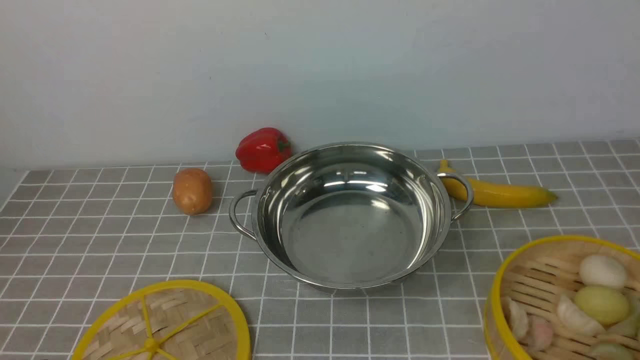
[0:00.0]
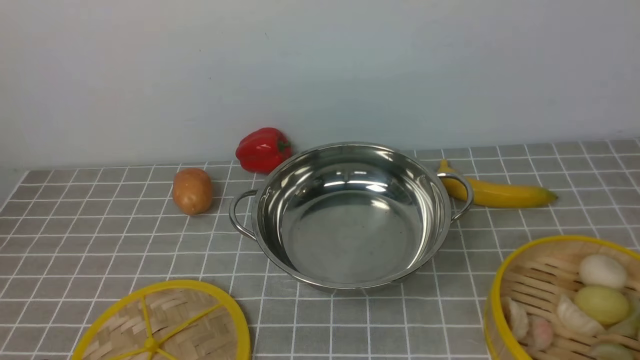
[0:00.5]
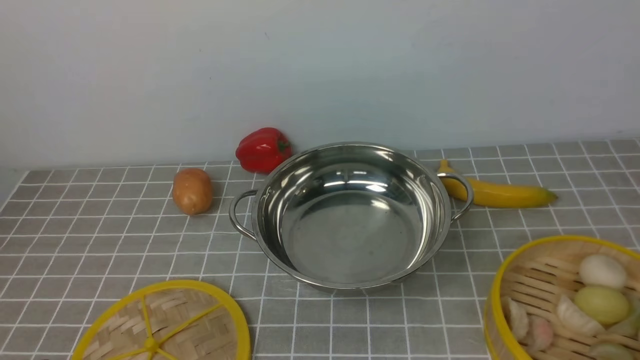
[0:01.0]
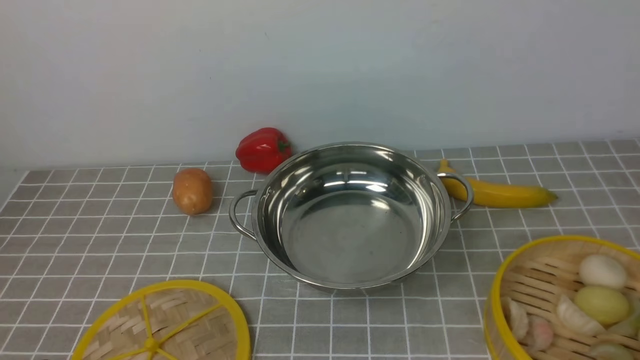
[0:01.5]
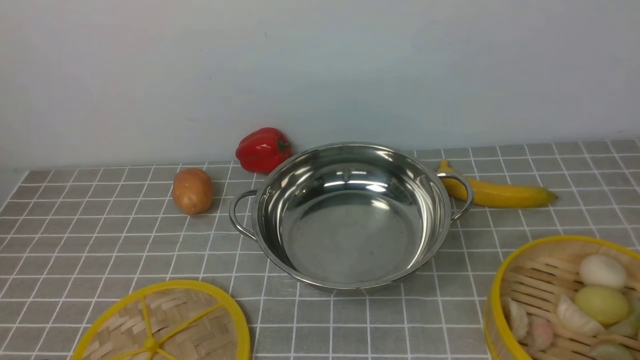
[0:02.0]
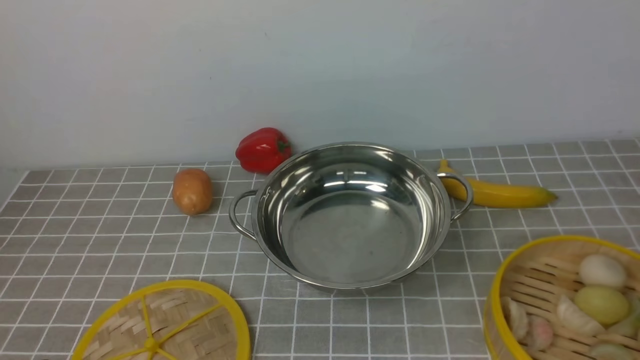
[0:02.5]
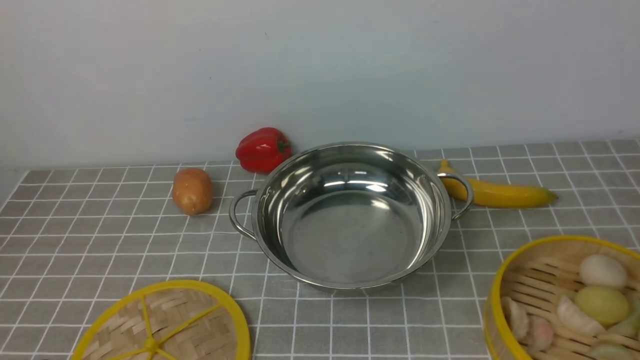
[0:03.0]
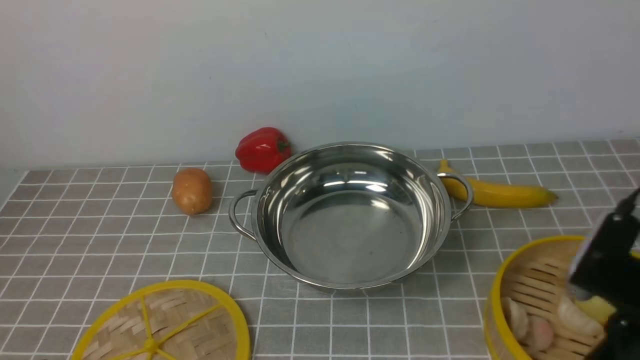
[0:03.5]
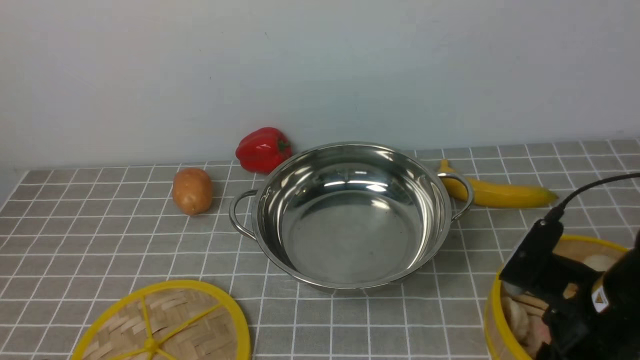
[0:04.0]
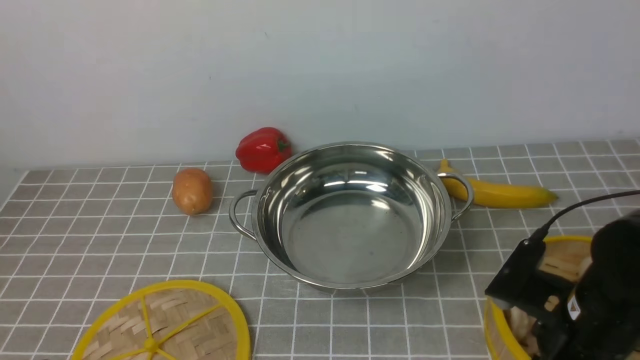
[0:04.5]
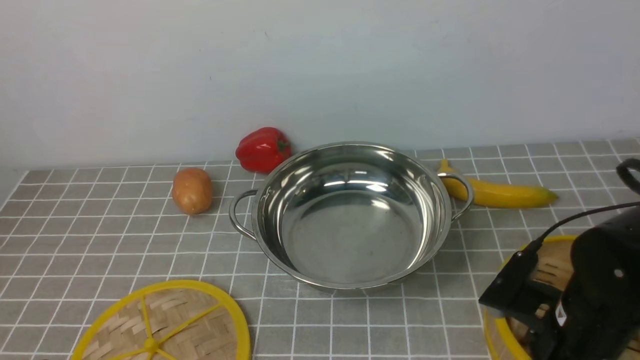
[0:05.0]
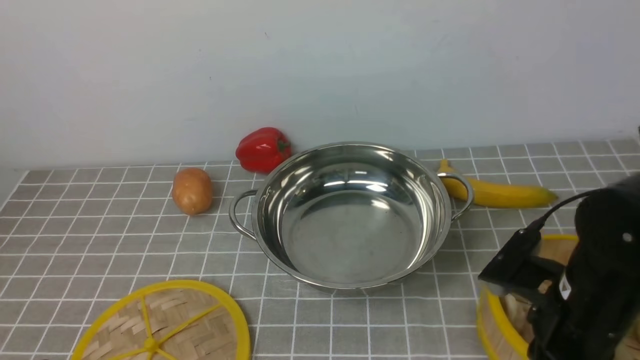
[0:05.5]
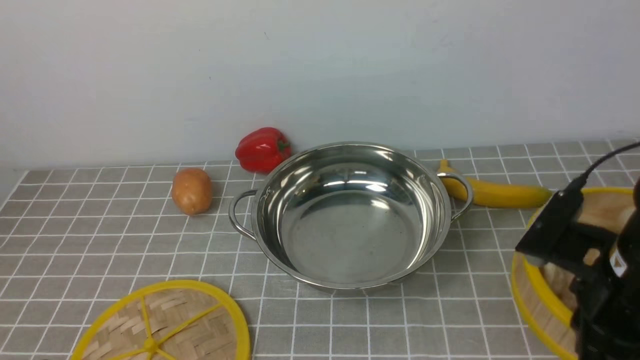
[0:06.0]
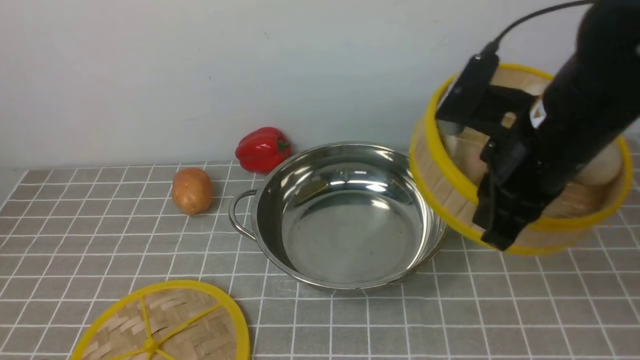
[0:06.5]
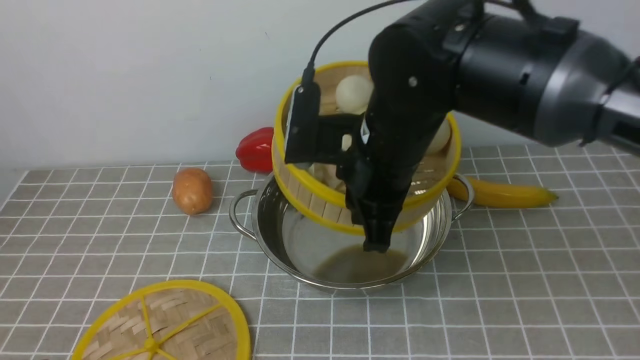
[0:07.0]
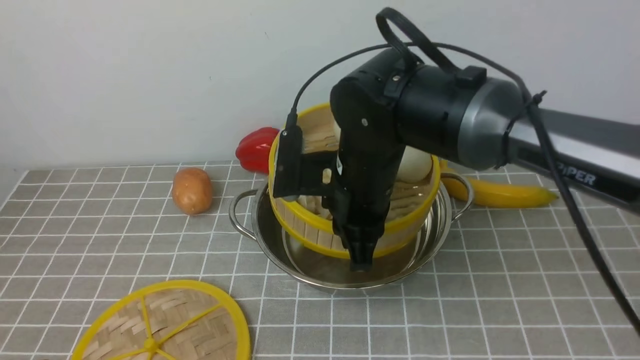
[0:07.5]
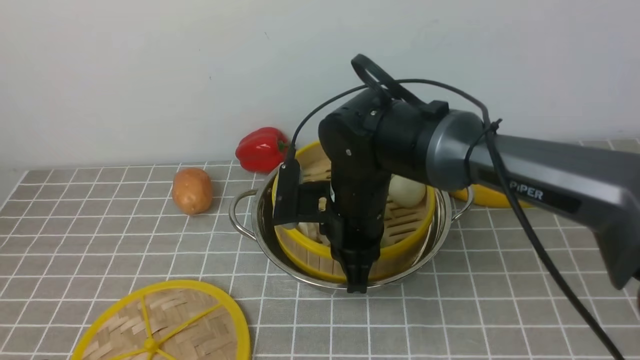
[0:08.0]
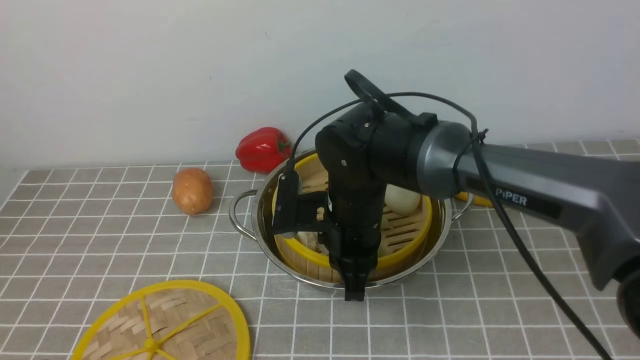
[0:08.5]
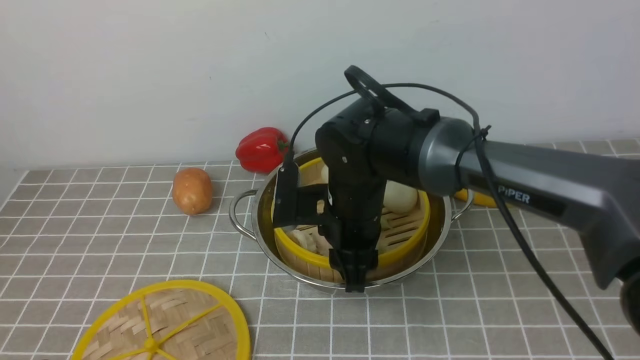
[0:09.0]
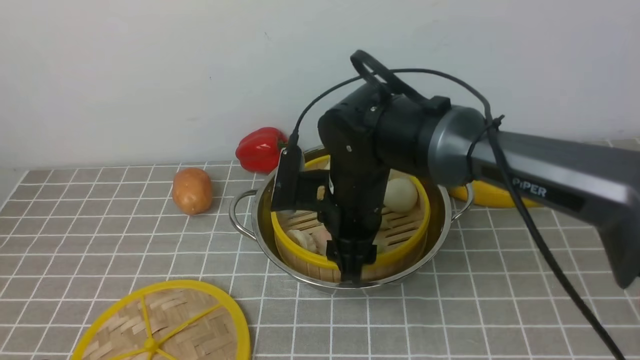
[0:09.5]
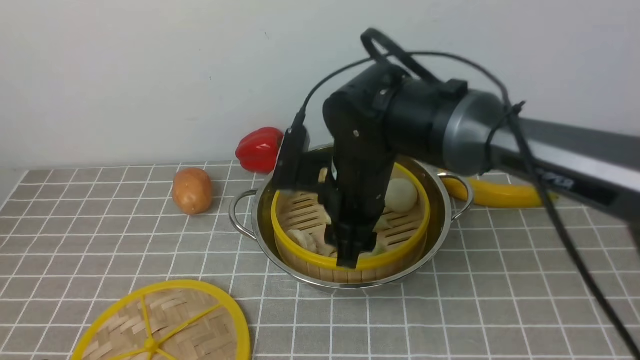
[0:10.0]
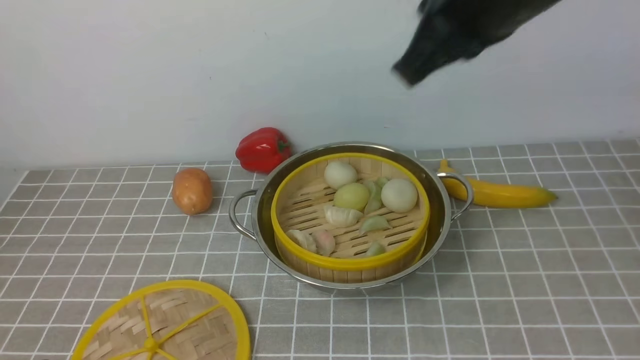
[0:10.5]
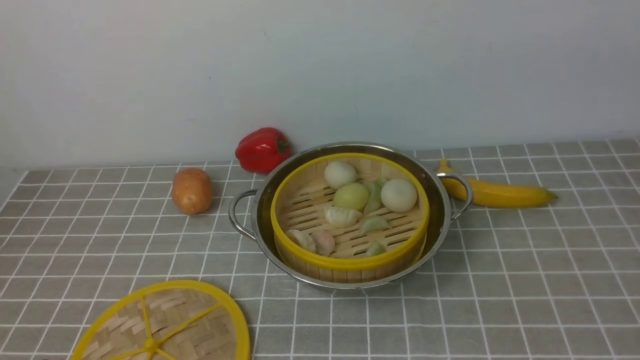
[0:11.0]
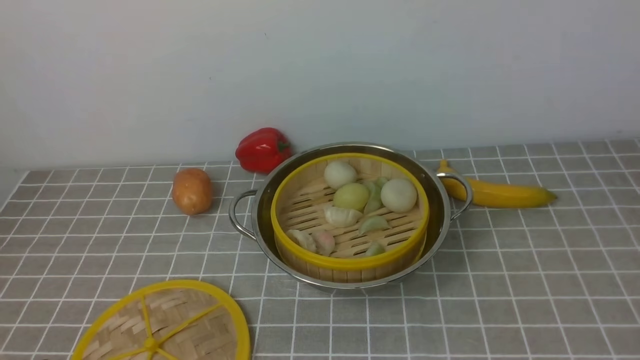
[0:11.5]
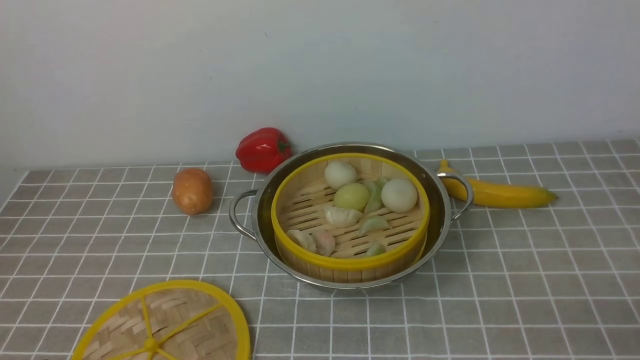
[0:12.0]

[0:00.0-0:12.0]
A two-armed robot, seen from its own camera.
Task of the whole recording: place the steamer in the pot on the grey tablecloth, and put the lid on the steamer.
Step, 0:00.0 to 0:05.5: use the right arm to lift the steamer closest to it.
Step, 0:06.0 to 0:09.5: use the right arm to put the steamer into the iron steamer pot in the middle.
0:00.0 to 0:02.0: Both grippers stay put.
0:02.0 to 0:04.0: The right gripper goes approximately 15 cm forward and to the left.
0:04.0 to 0:06.0: The right gripper changes place by some 5 cm, and closes its fingers.
0:06.0 to 0:08.0: The right gripper shifts roughly 25 cm to the left and forward.
0:08.0 to 0:10.0: The right gripper is displaced upward by approximately 5 cm, and opens up.
0:10.0 to 0:12.0: The right gripper goes some 40 cm to the right and backward, moves some 25 cm upward and comes back, and closes up.

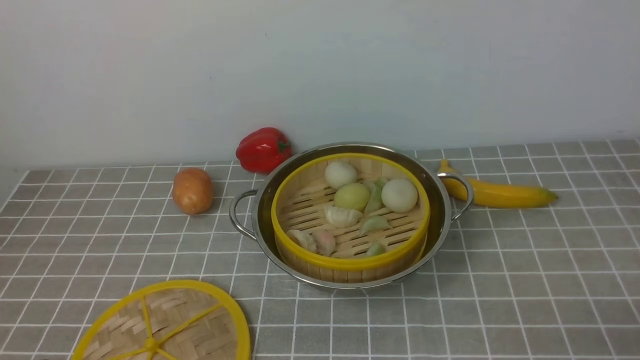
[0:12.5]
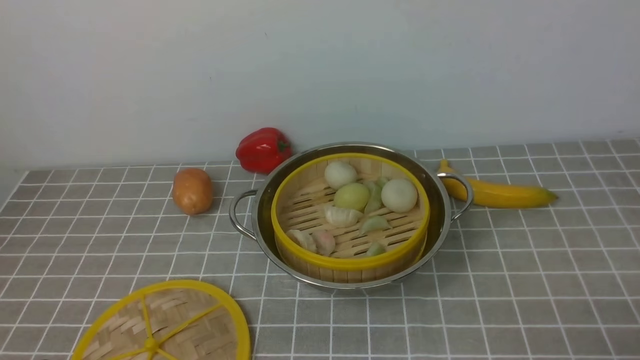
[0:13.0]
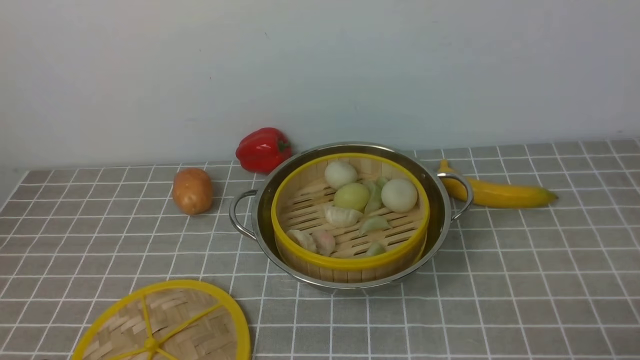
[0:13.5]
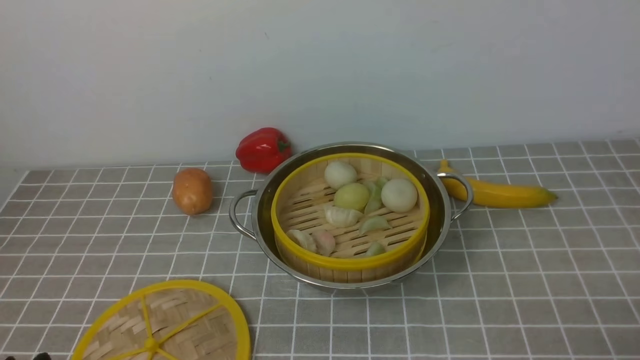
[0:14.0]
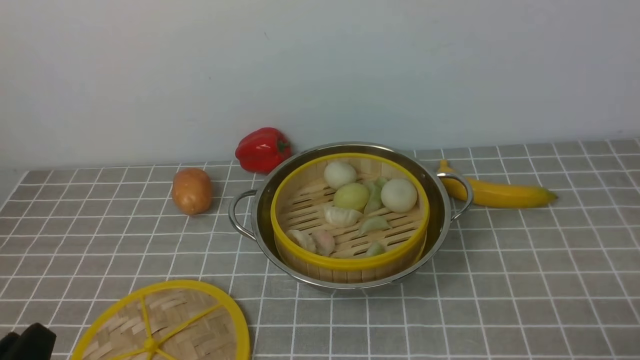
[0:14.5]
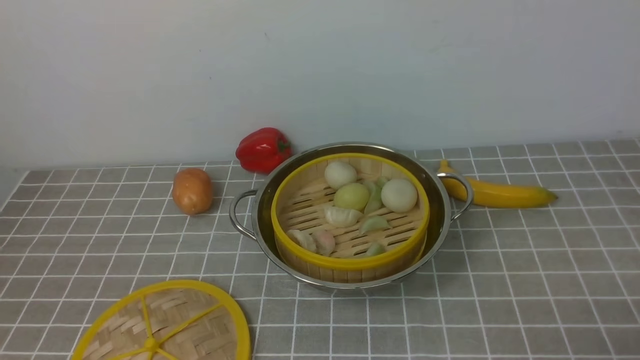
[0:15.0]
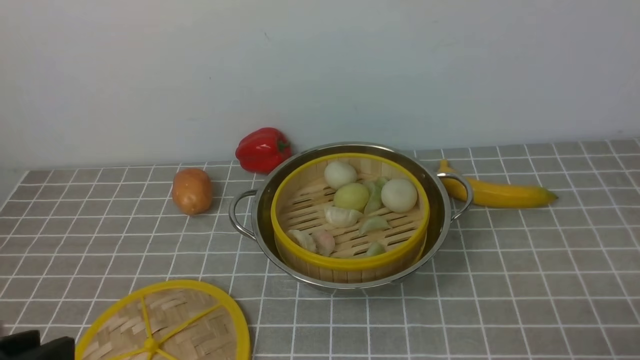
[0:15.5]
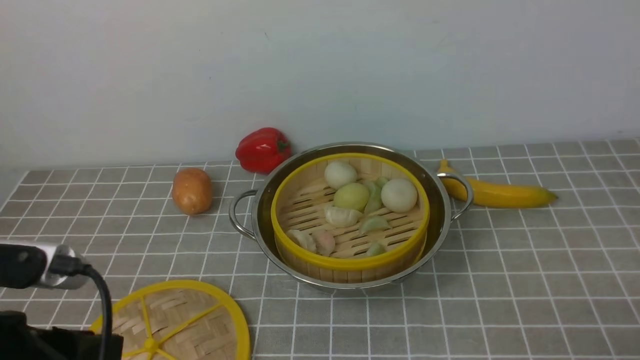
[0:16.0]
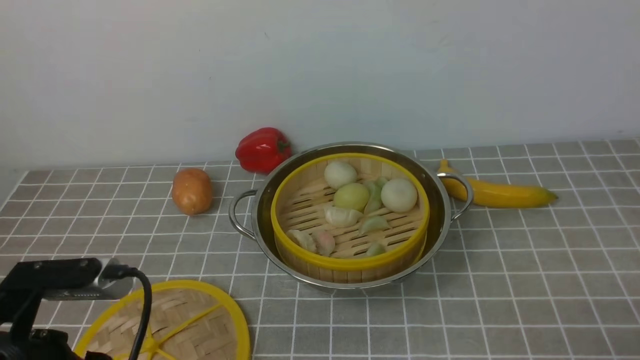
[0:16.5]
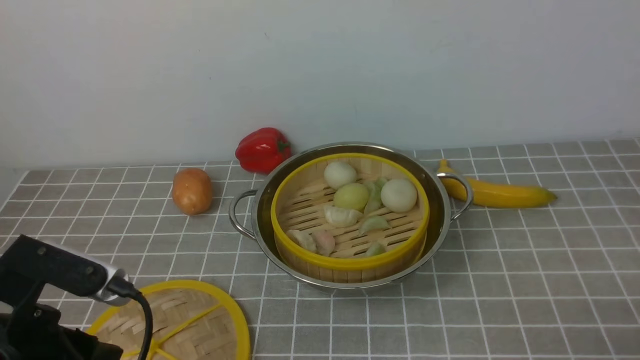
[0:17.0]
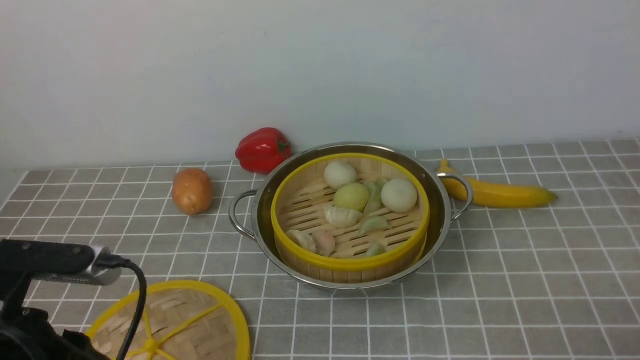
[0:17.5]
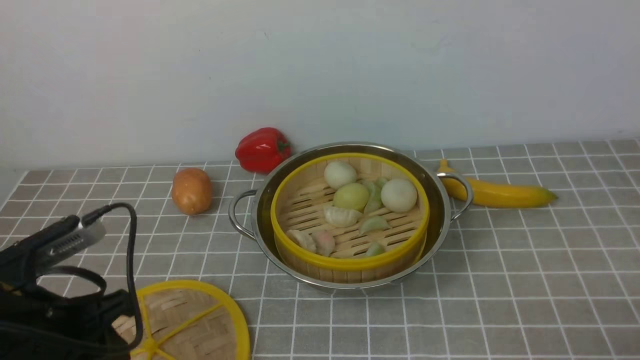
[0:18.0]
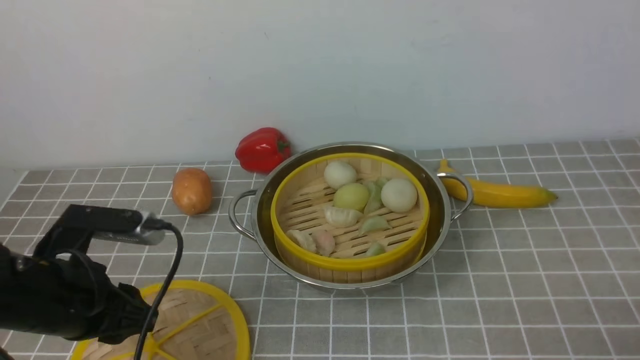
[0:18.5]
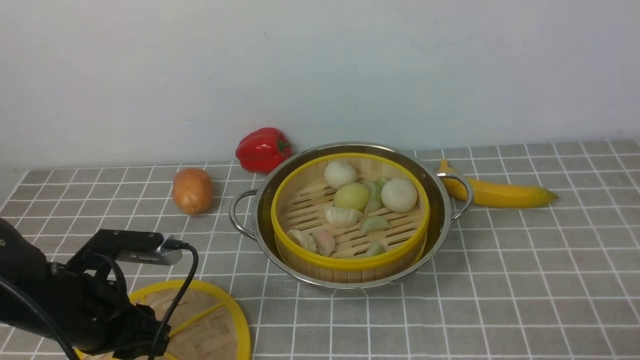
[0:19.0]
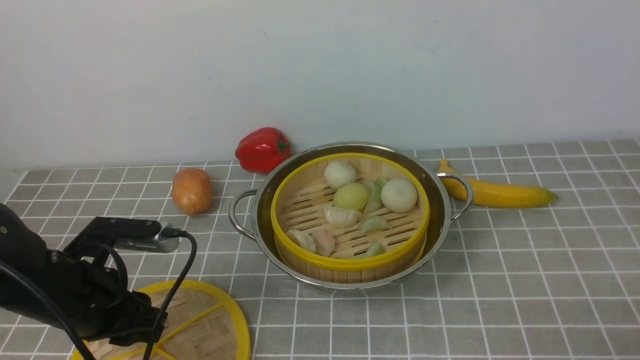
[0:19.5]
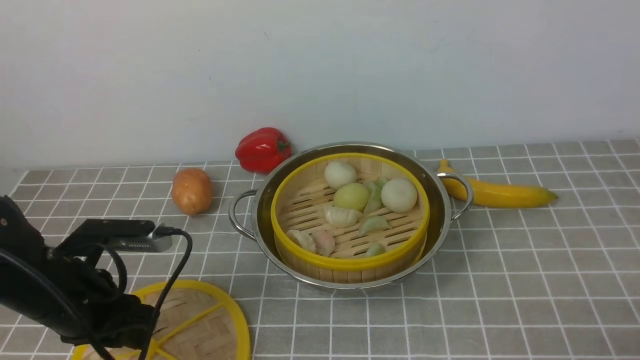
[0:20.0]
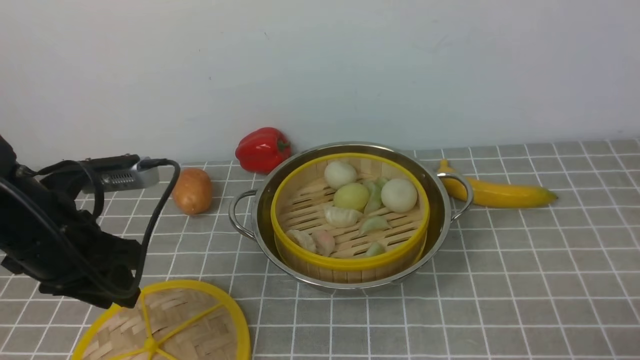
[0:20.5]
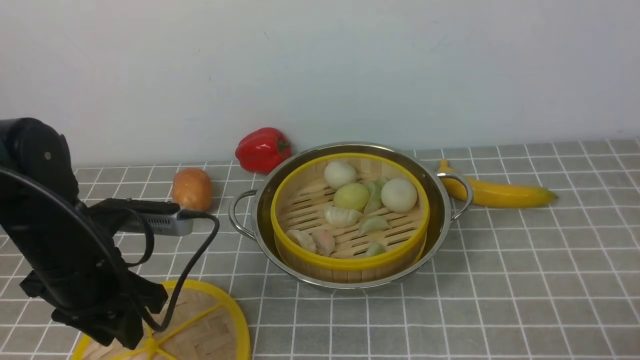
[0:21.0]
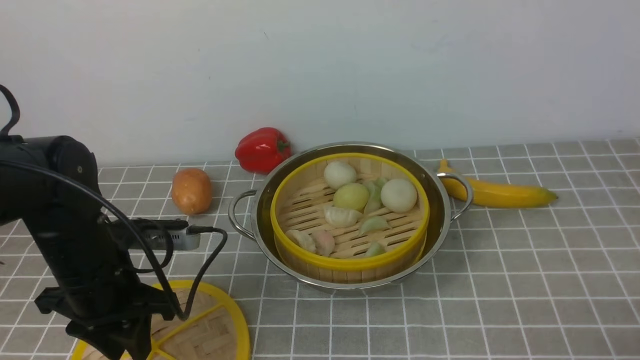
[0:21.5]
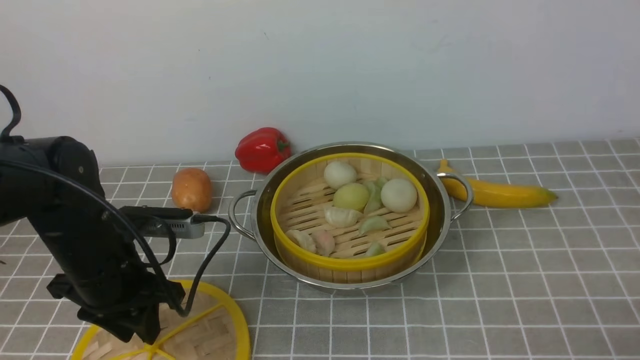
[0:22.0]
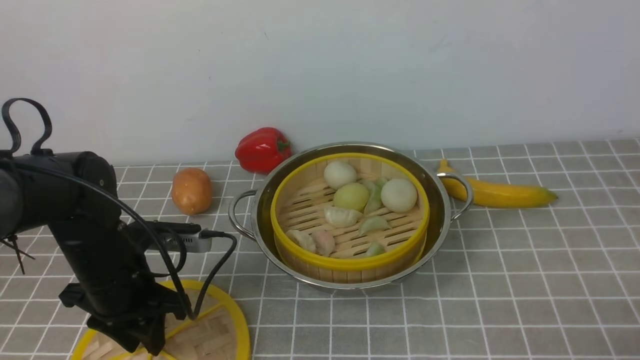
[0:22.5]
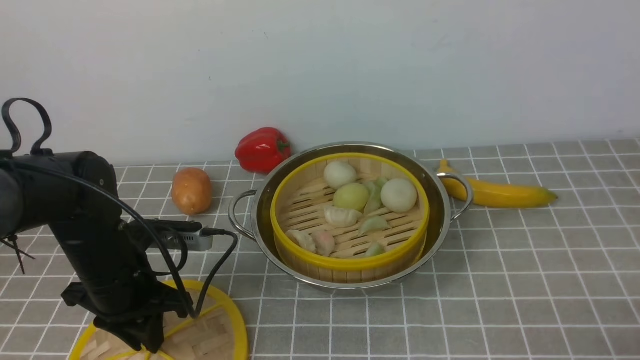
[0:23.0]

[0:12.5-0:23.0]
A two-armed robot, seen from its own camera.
Task of the whole recording: place the steamer in the pot on the grey tablecloth, and put the lid on the steamer.
0:14.5 to 0:16.5: The left gripper shifts approximately 10 cm forward.
0:16.5 to 0:19.0: The left gripper goes about 15 cm forward and downward.
0:19.0 to 0:21.0: The left gripper changes place by approximately 5 cm.
0:21.0 to 0:23.0: The left gripper goes roughly 5 cm downward.
